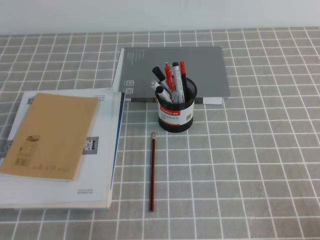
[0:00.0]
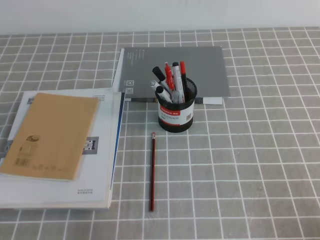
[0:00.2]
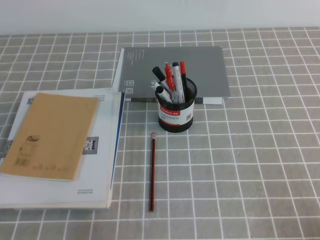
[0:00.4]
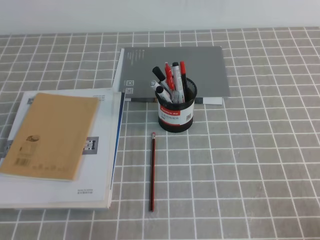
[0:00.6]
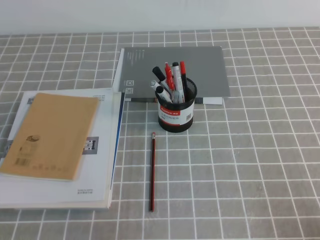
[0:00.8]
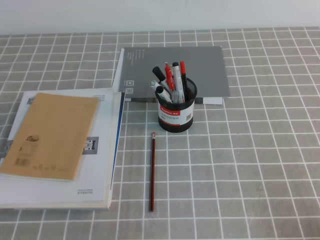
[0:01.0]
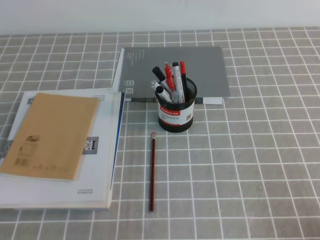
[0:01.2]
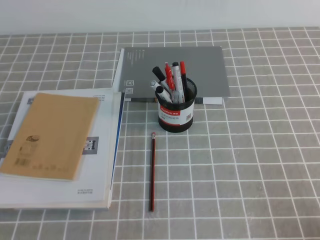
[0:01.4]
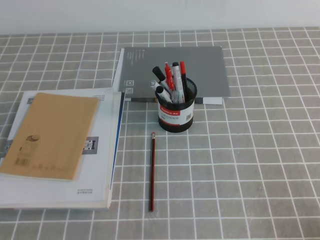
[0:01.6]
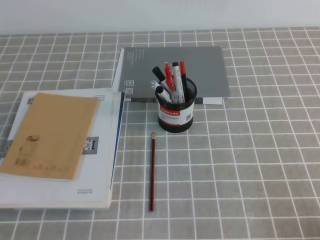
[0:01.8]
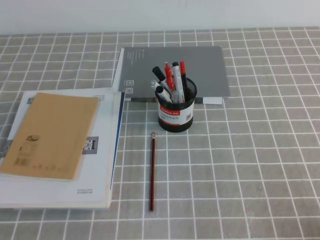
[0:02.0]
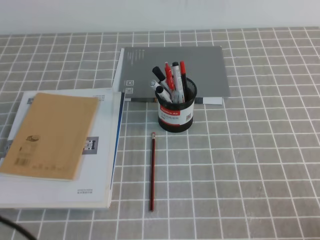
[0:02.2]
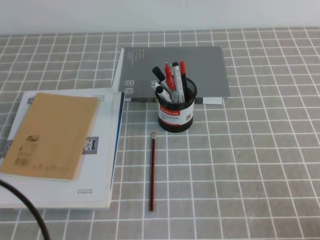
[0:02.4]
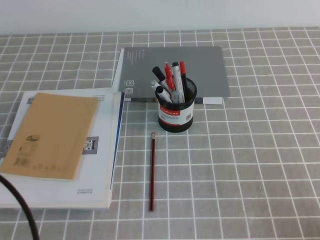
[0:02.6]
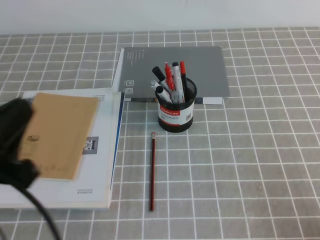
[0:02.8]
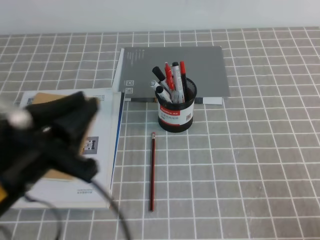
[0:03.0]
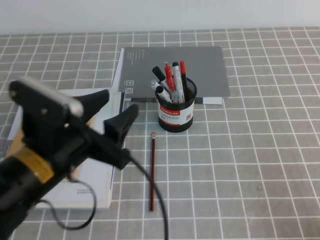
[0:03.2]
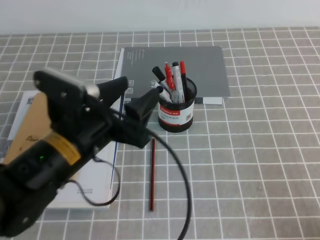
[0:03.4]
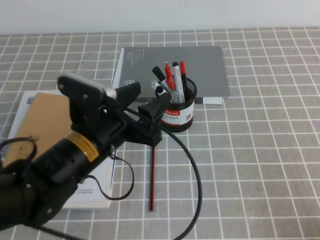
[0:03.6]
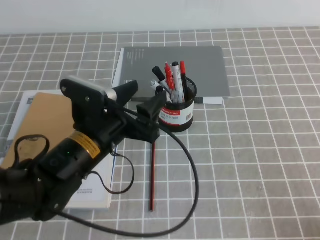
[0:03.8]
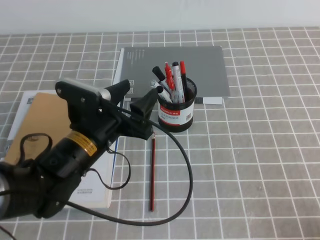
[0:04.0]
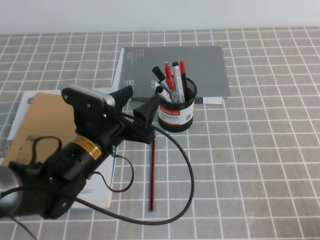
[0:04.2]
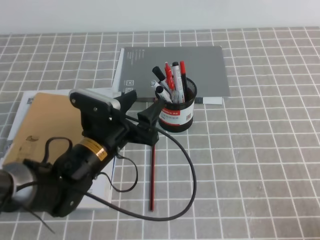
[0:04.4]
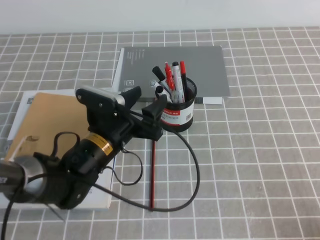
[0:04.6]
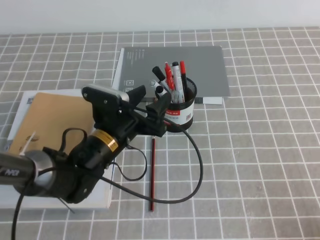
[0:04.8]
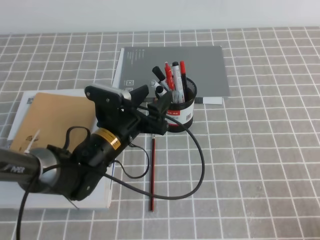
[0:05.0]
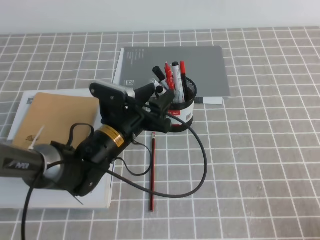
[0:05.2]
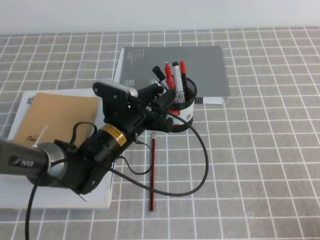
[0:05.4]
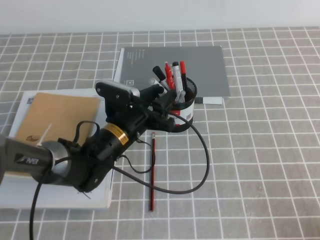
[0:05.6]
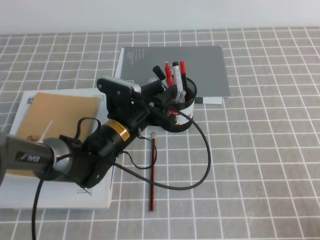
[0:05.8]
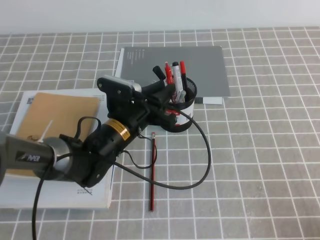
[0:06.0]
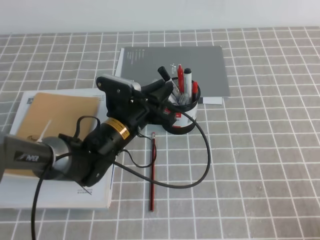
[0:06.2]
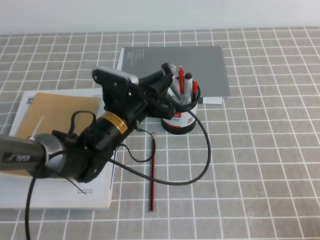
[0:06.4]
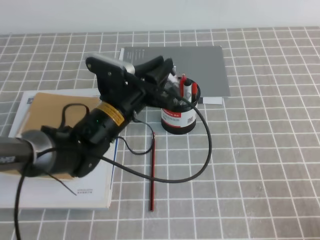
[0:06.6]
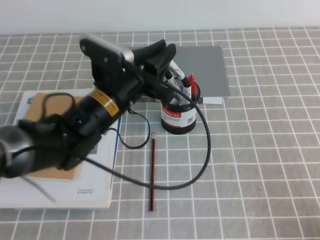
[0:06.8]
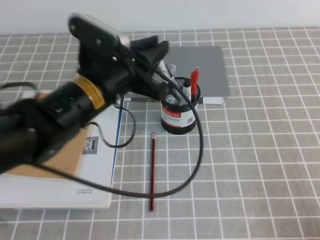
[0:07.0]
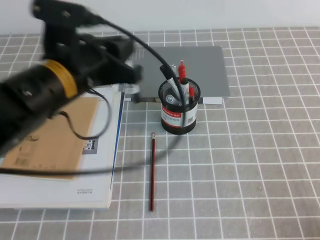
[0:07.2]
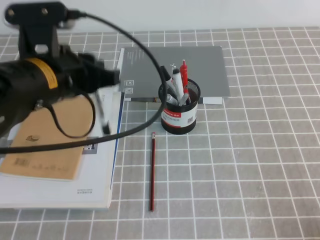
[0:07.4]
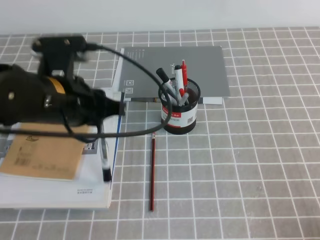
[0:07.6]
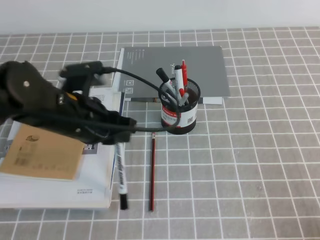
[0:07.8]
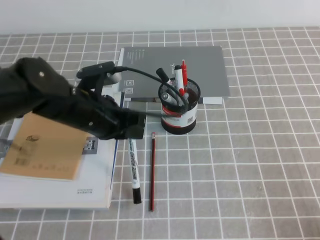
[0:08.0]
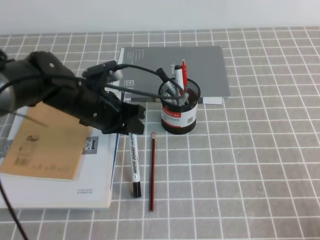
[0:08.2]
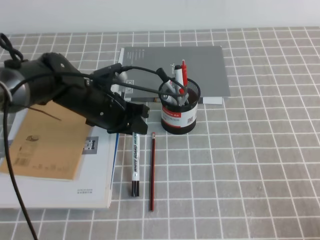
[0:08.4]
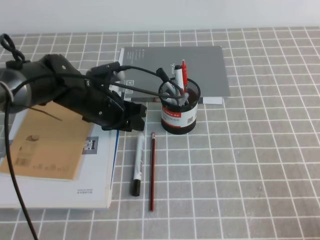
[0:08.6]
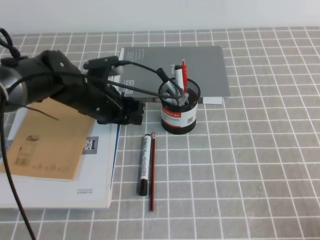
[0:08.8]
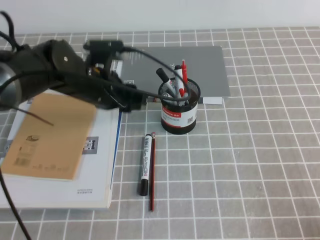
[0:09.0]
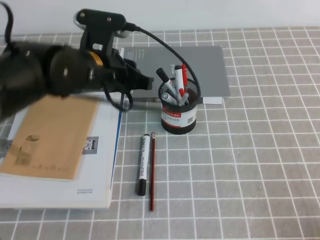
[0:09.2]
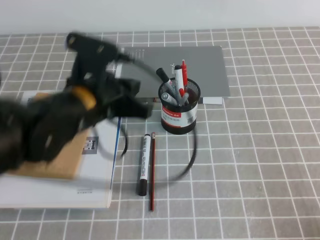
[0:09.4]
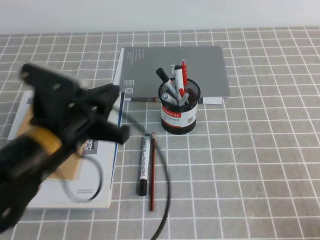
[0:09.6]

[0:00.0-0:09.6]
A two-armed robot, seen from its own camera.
0:01.6 to 0:03.2: The left gripper goes roughly 20 cm to the right, forward and upward, and opens its fingers.
0:03.2 to 0:04.8: The left gripper goes about 20 cm forward, downward and to the right.
0:04.8 to 0:06.4: The left gripper closes.
0:06.4 to 0:08.0: The left gripper heads upward and to the left, covering approximately 10 cm.
0:08.0 to 0:09.6: The left gripper shifts approximately 10 cm backward.

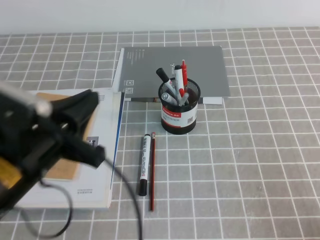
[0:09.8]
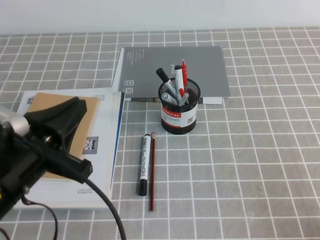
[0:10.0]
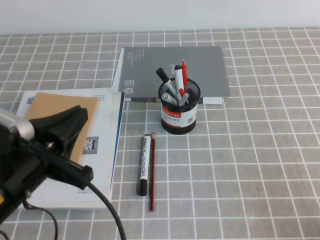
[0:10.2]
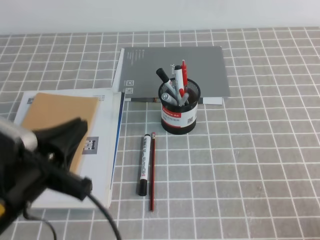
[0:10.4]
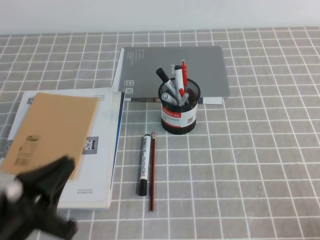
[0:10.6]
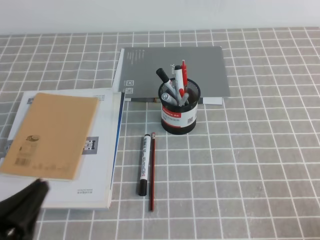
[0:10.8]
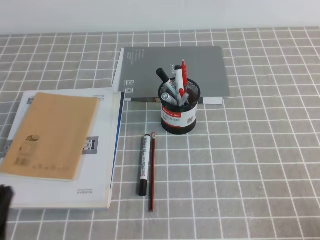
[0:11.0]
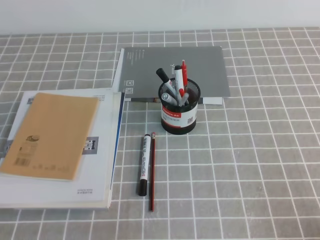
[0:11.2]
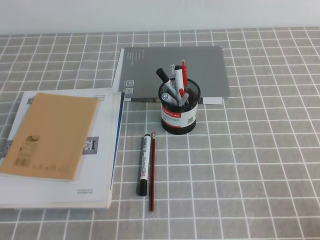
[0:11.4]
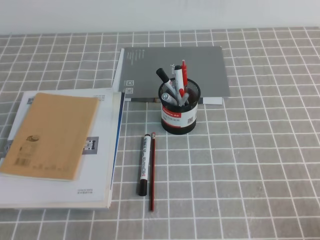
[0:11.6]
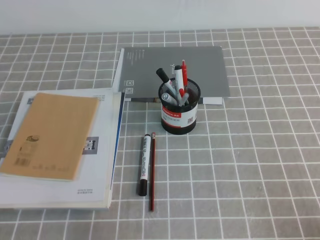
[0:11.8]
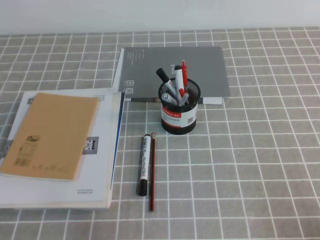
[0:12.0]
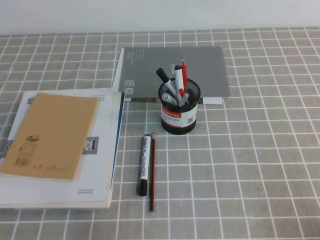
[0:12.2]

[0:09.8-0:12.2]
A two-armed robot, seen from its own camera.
Step, 0:09.8 to 0:12.2: Pick up the pen from the pen holder.
0:09.8 to 0:11.0: The left gripper is displaced backward, to the left and downward by about 15 cm.

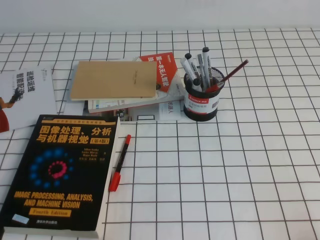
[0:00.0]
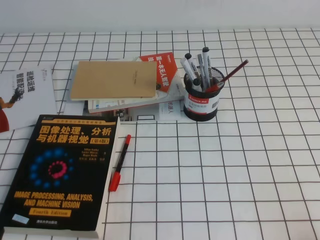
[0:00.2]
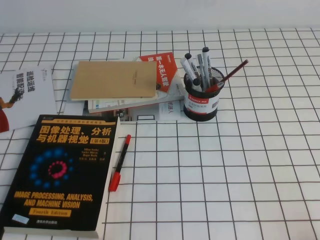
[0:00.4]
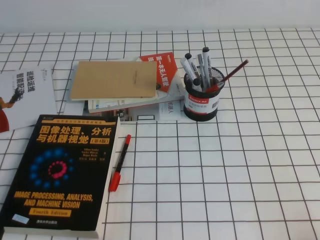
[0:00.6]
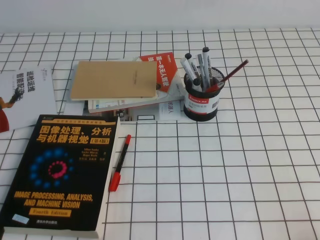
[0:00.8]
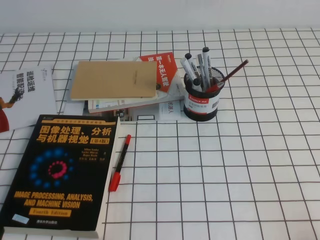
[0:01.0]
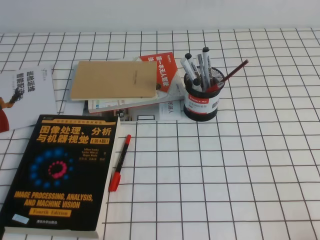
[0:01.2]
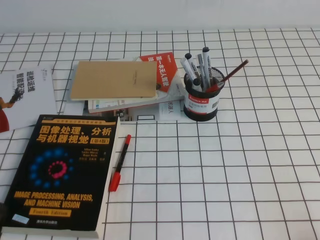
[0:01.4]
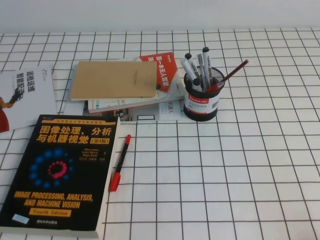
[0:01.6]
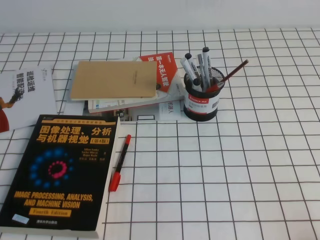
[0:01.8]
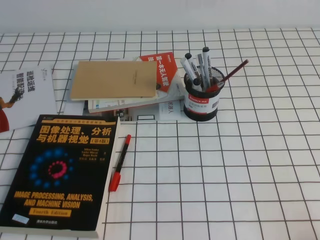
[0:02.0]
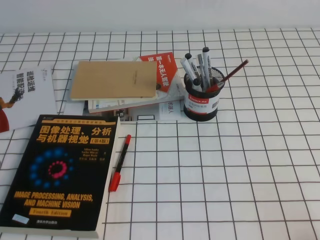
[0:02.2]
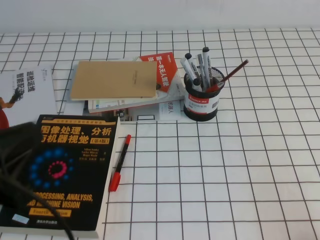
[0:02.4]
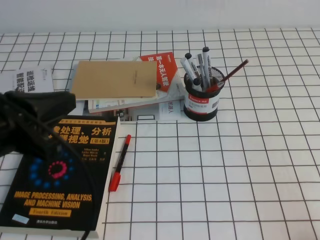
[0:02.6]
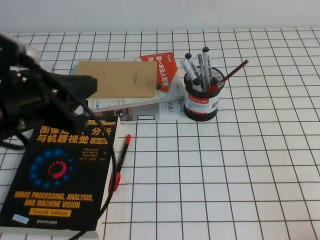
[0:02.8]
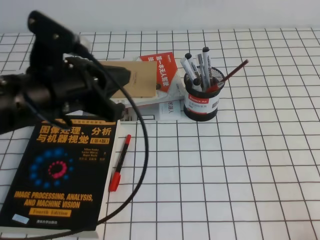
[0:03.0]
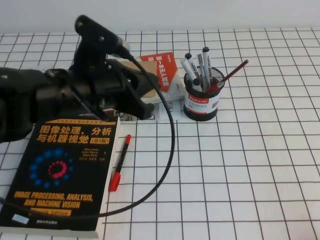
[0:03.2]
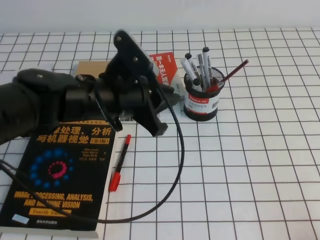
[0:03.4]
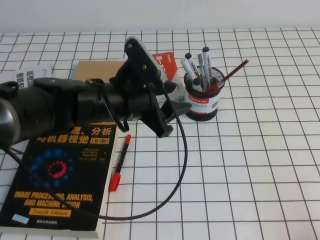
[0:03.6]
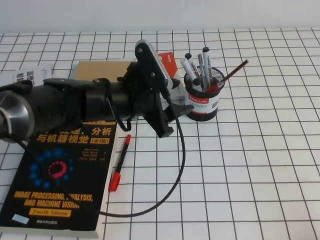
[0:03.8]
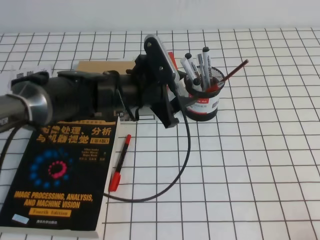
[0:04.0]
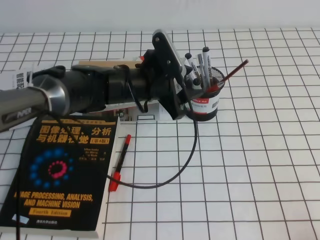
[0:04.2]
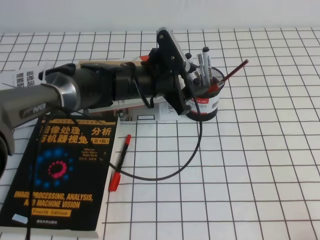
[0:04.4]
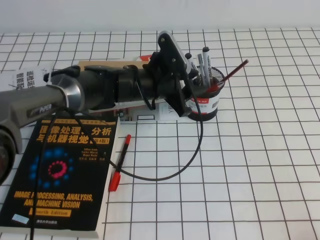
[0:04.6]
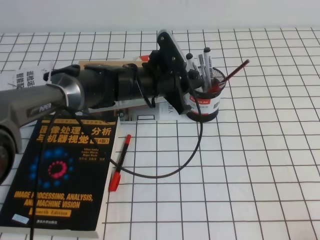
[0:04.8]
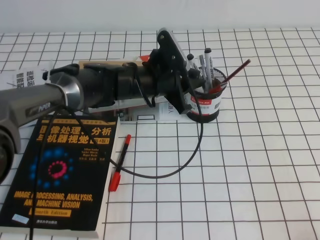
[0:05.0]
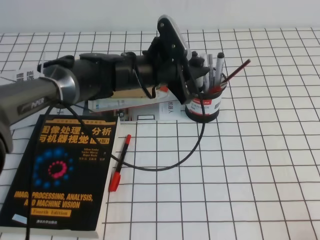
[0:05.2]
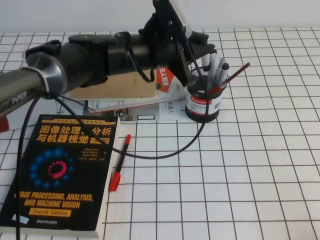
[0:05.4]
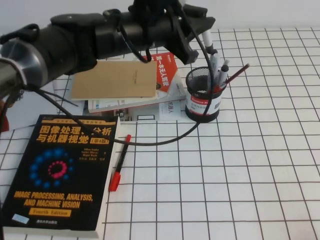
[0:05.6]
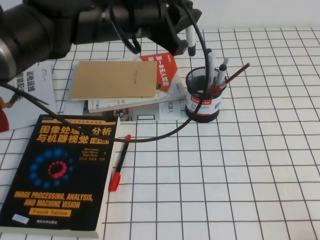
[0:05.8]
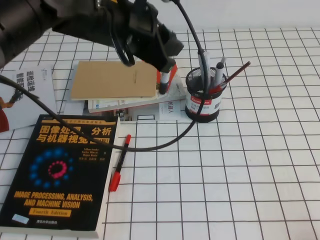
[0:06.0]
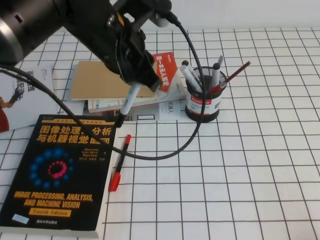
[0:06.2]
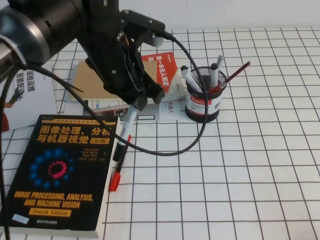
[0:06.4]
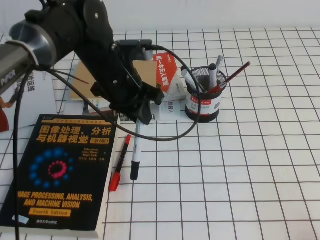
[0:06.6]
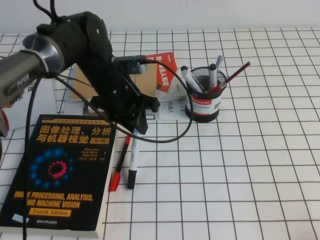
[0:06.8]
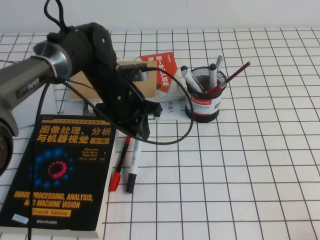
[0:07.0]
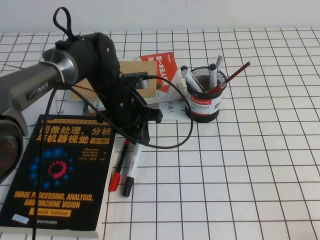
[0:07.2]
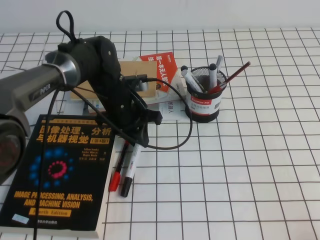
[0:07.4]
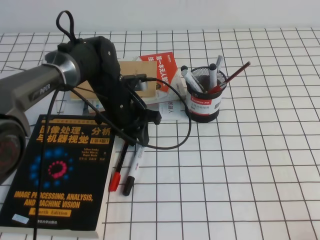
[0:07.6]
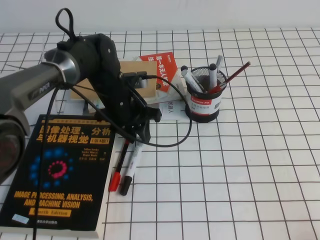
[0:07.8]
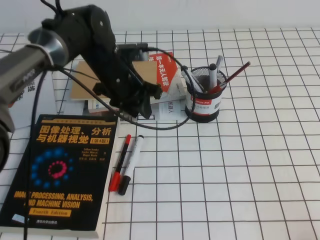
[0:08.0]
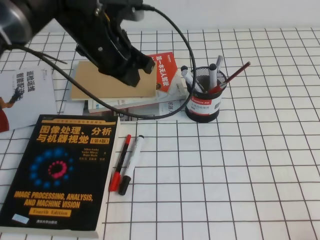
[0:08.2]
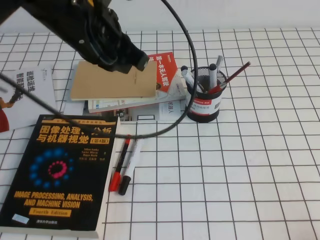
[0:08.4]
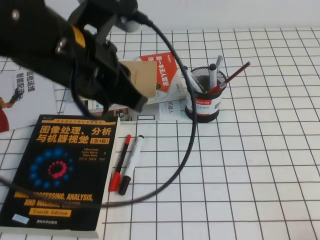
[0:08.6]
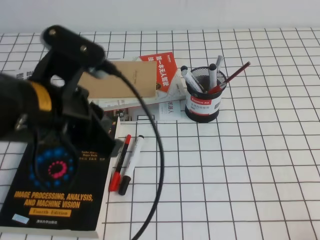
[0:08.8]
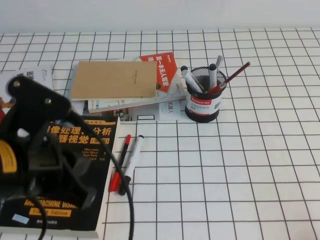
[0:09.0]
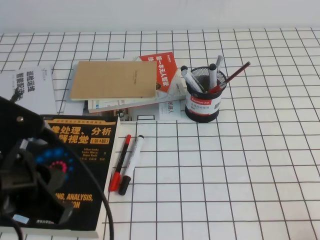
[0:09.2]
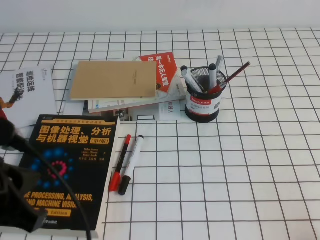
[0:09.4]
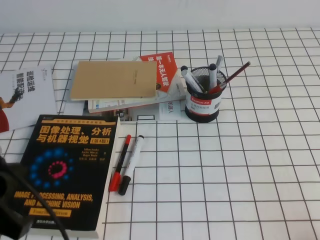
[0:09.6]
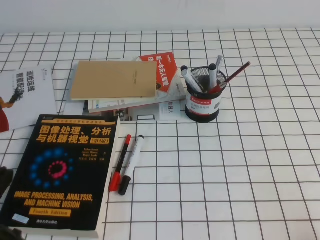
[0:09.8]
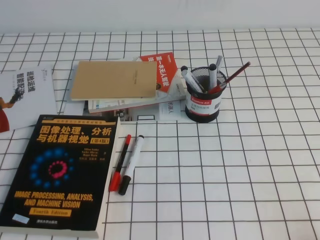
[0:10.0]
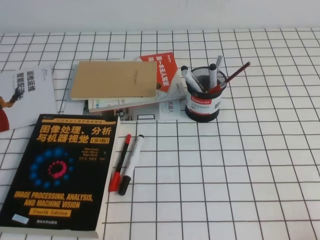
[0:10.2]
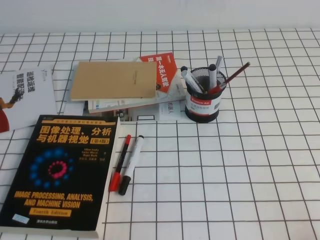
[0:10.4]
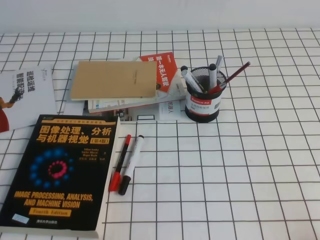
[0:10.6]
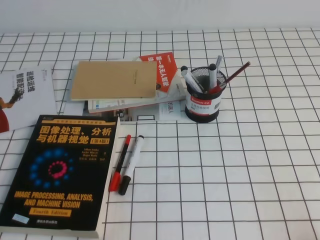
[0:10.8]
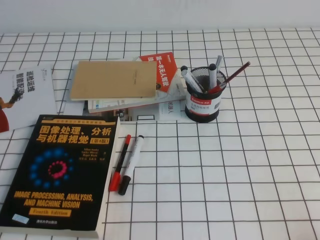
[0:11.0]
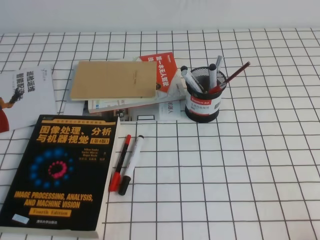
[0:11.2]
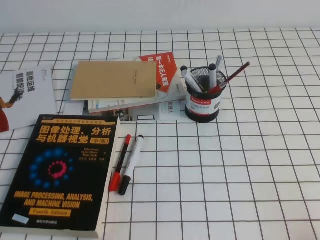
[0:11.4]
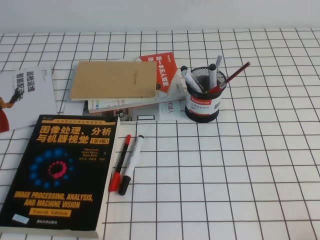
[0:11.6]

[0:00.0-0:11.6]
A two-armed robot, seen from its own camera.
Step, 0:00.0 to 0:11.6: Pick up the pen from the pen holder.
0:01.4 to 0:02.8: The left gripper heads upward, forward and to the right, covering approximately 20 cm.
0:02.8 to 0:04.4: The left gripper travels forward, to the right and downward by roughly 30 cm, and opens.
0:04.4 to 0:05.8: The left gripper heads upward, covering about 10 cm, and closes up.
0:05.8 to 0:07.2: The left gripper heads downward, covering roughly 15 cm.
0:07.2 to 0:08.8: The left gripper heads upward and backward, covering roughly 25 cm.
0:08.8 to 0:10.2: The left gripper goes some 25 cm backward, to the left and downward.
